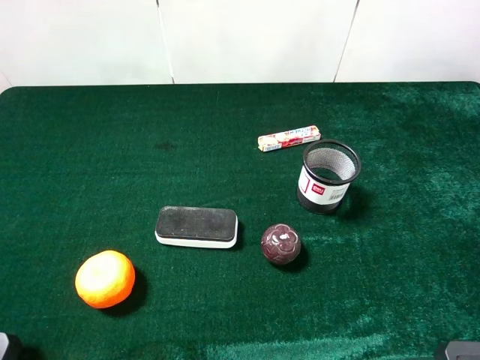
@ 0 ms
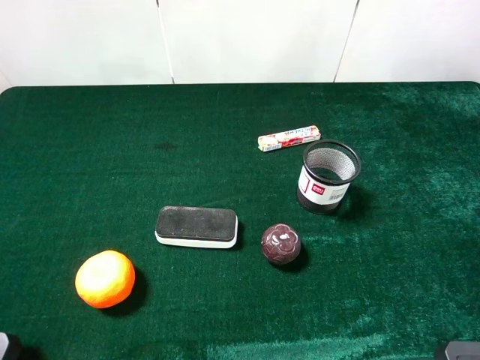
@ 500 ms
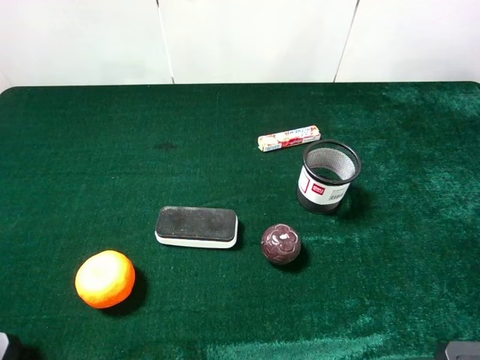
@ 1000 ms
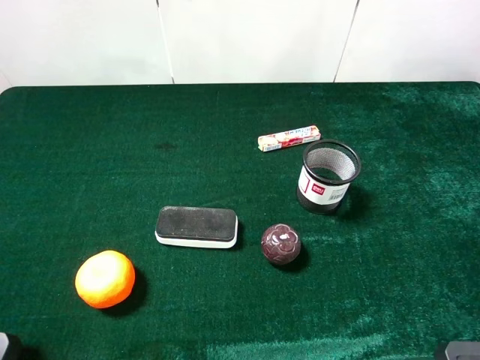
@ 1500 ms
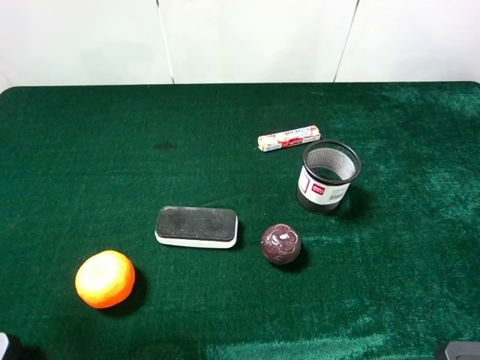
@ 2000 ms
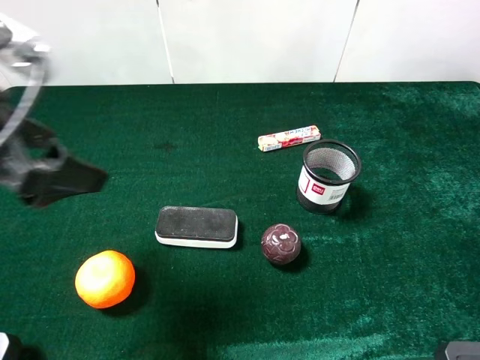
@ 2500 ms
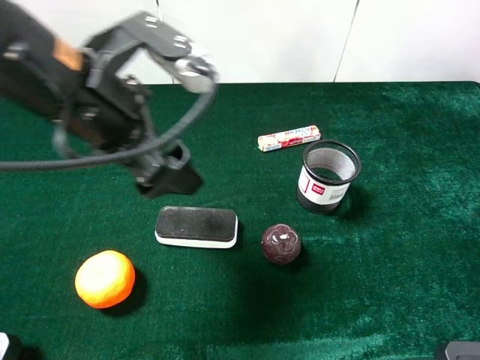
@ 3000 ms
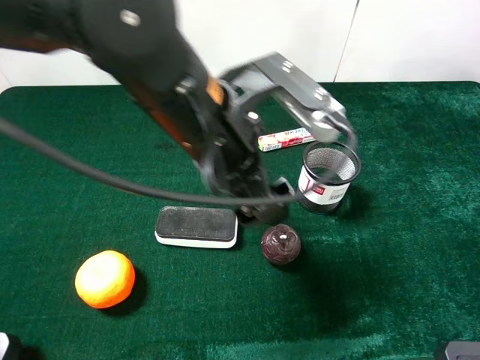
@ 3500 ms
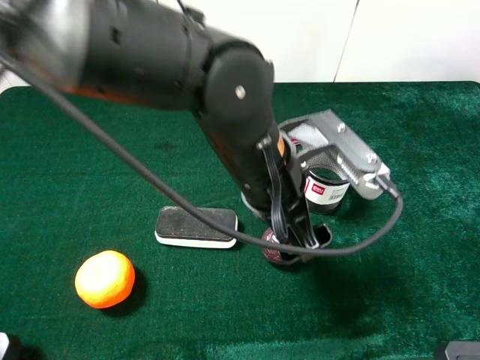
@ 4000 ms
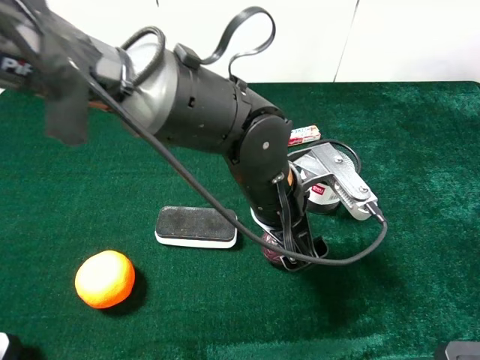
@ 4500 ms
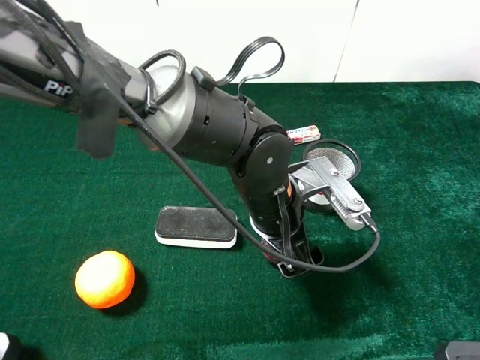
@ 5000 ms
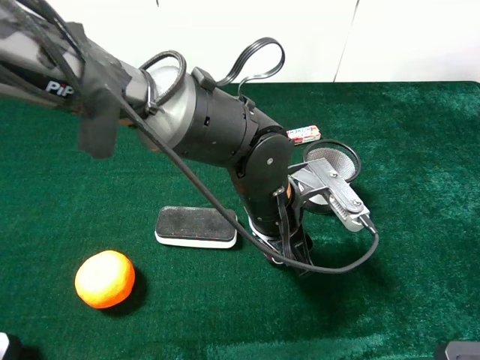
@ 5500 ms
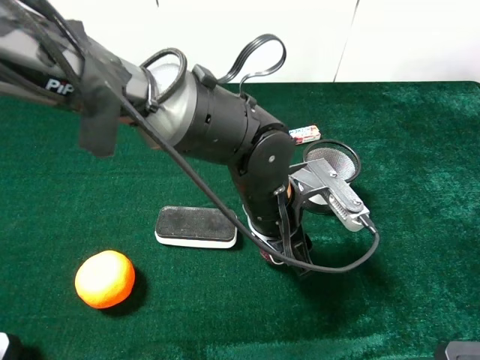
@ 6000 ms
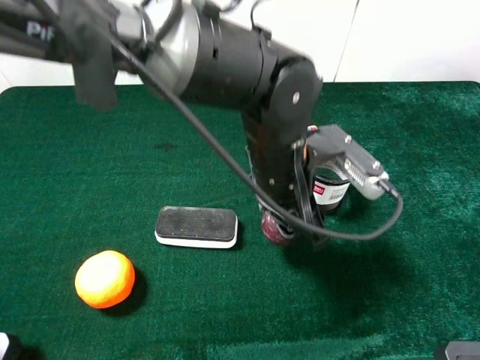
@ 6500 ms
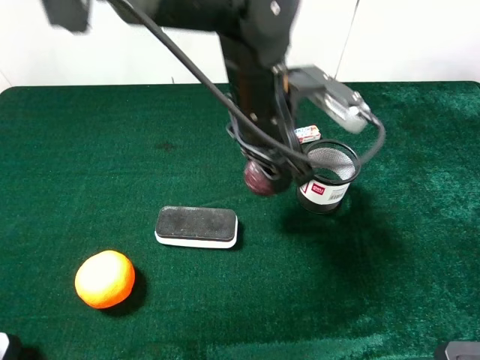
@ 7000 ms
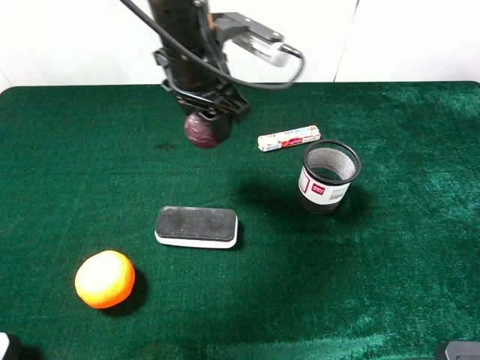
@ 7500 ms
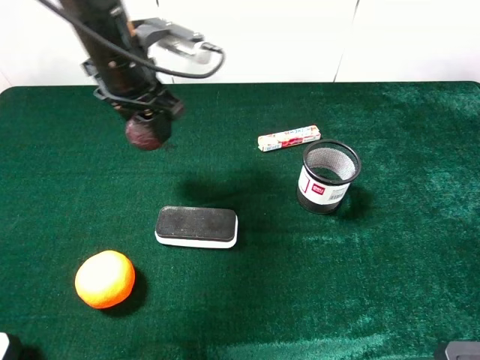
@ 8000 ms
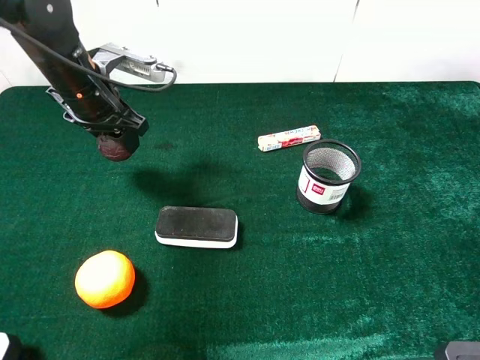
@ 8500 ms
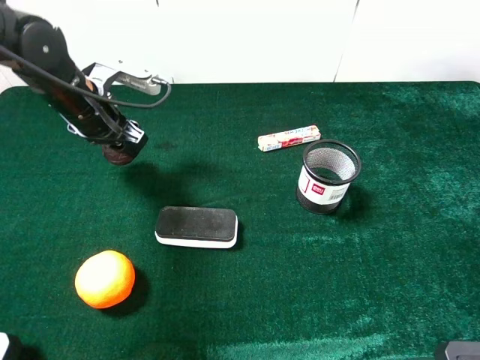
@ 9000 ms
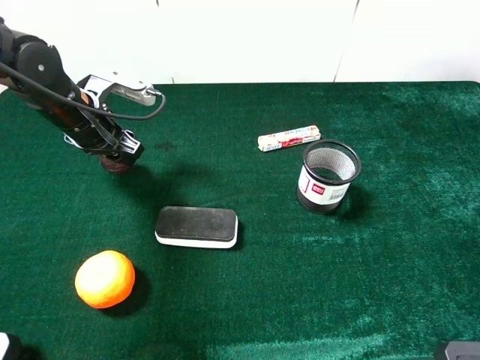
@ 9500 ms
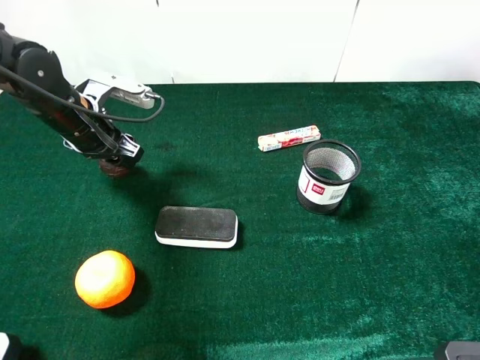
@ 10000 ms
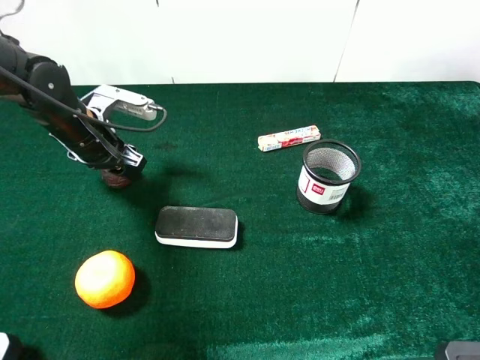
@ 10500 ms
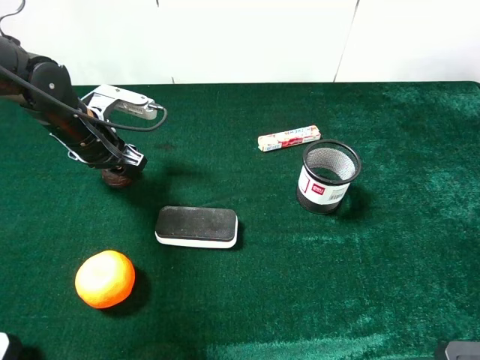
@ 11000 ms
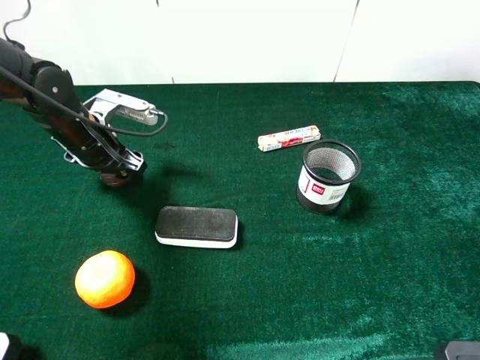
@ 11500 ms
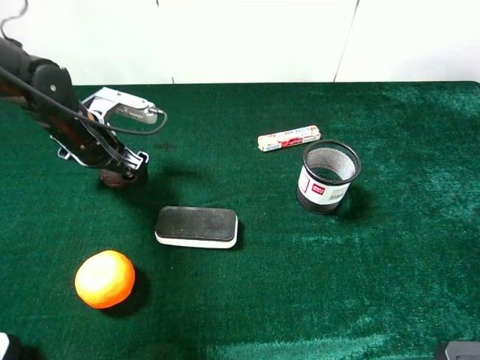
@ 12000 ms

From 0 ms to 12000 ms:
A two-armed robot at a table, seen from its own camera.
Task of the whole recording: the gripper move the object.
Step, from 0 ms to 5000 ms: Grasp the mangosteen with the left gripper.
Step, from 5500 ms to 11500 ms: Place the mangosteen on the table with the left gripper.
From 2000 ms to 4000 ms: The left gripper is displaced to the right by about 30 cm.
From 4000 ms to 6000 ms: The left gripper goes approximately 10 cm downward, and closes up.
From 6000 ms to 8000 ms: The left gripper heads to the left, forward and upward, covering about 25 cm.
From 8000 ms to 10000 ms: The left gripper goes about 15 cm to the left and downward.
From 10000 ms to 12000 ms: The left gripper opens.

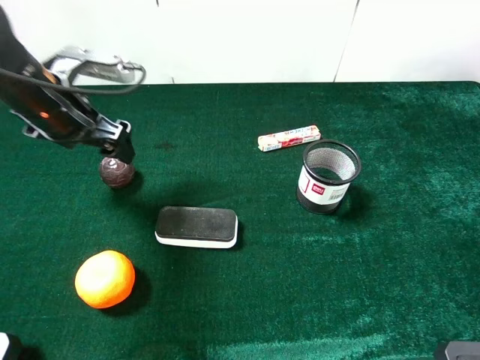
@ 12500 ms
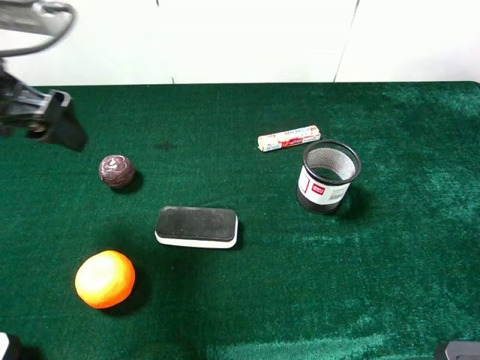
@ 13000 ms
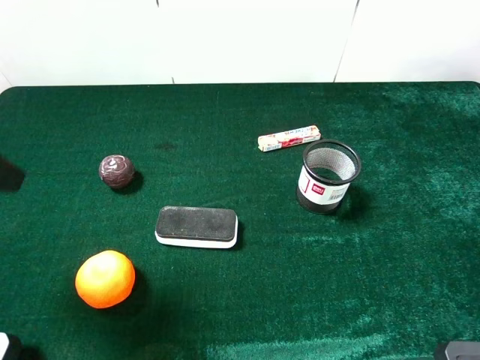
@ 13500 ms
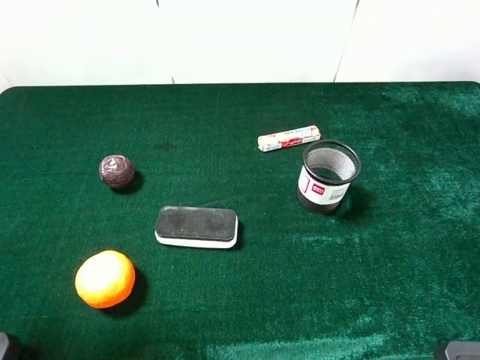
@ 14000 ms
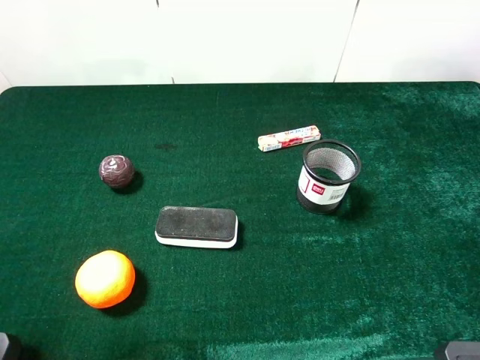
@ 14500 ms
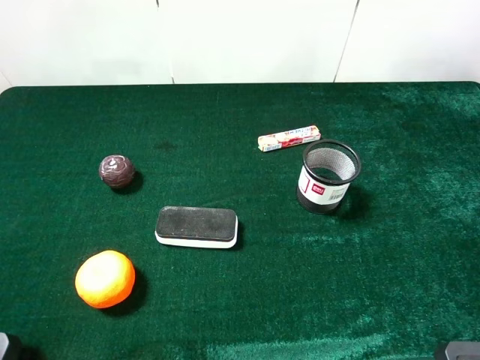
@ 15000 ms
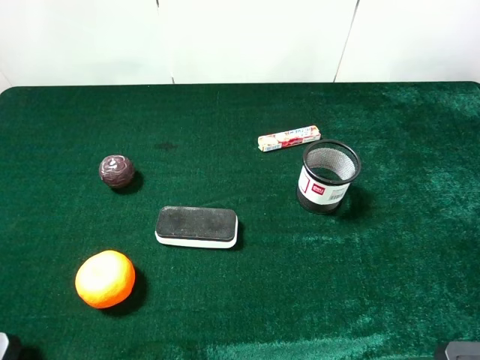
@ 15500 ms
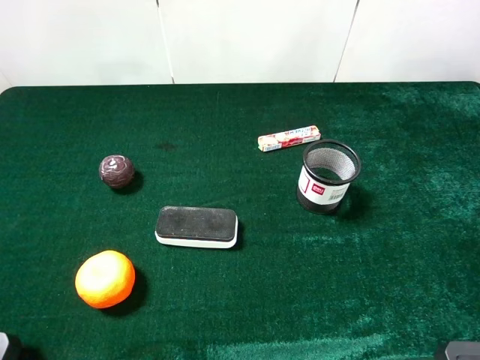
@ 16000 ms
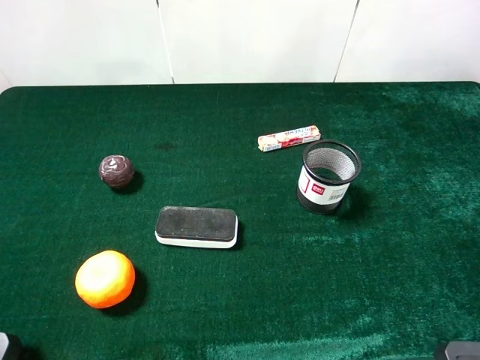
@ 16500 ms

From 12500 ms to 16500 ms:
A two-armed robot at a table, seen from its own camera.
Task of the whole recording: the gripper move the object.
From 12500 ms to 14500 ms: The left gripper goes about 25 cm backward and upward.

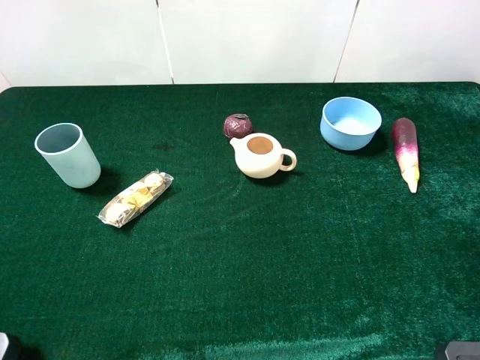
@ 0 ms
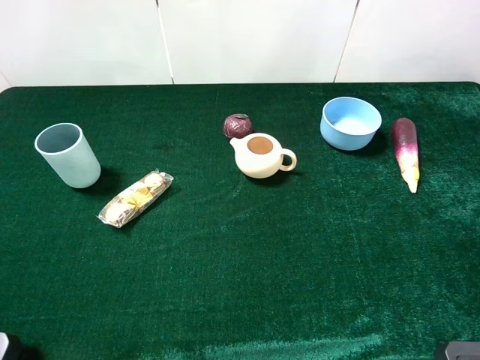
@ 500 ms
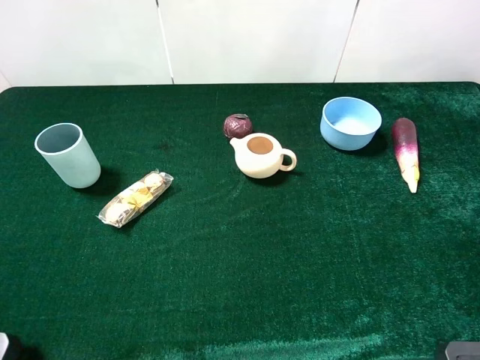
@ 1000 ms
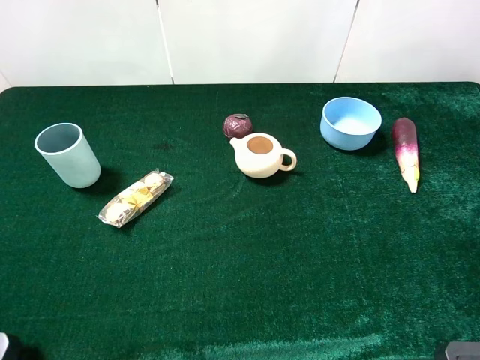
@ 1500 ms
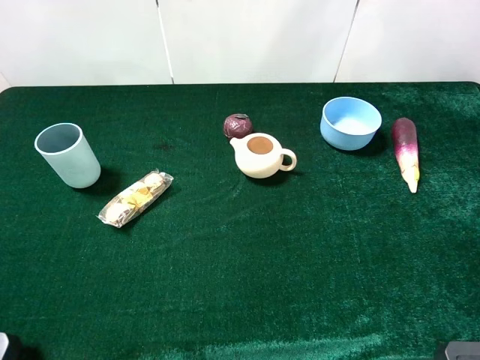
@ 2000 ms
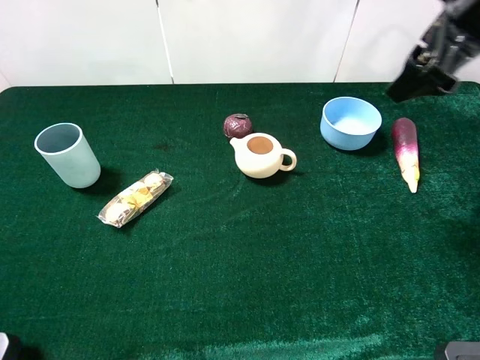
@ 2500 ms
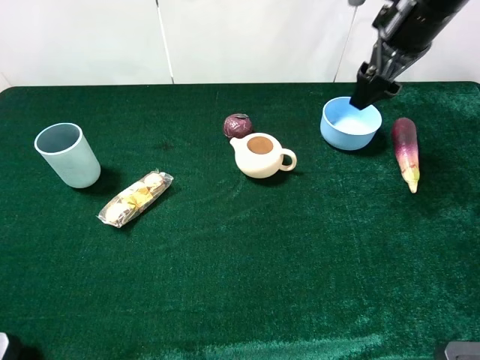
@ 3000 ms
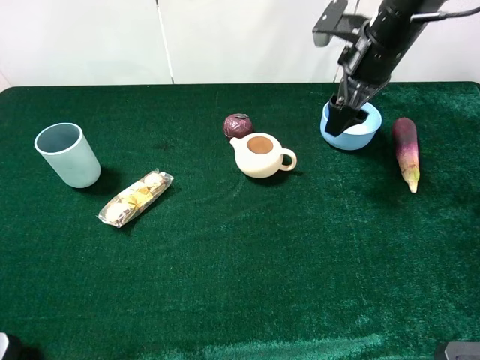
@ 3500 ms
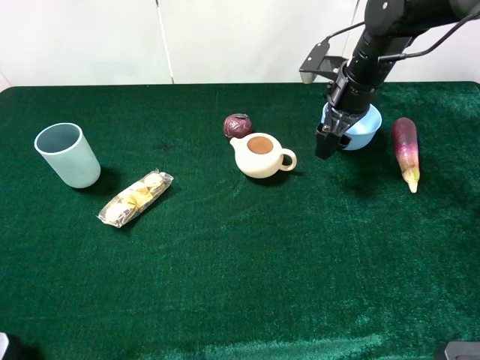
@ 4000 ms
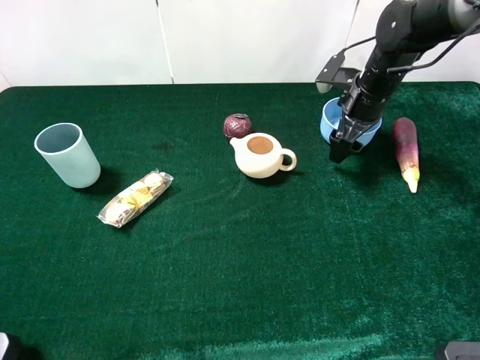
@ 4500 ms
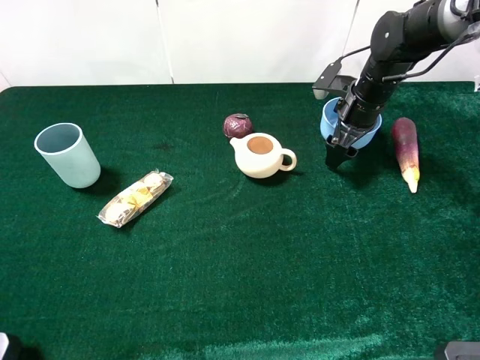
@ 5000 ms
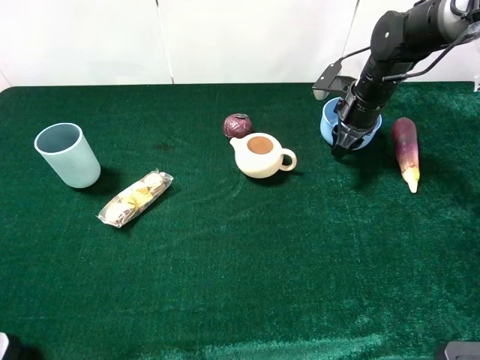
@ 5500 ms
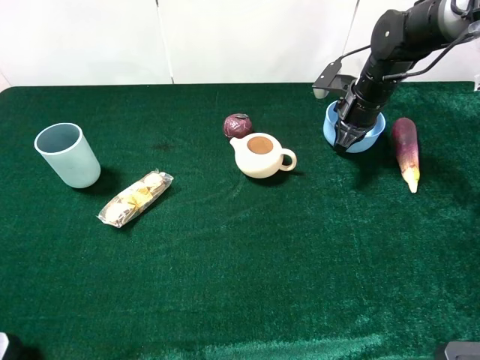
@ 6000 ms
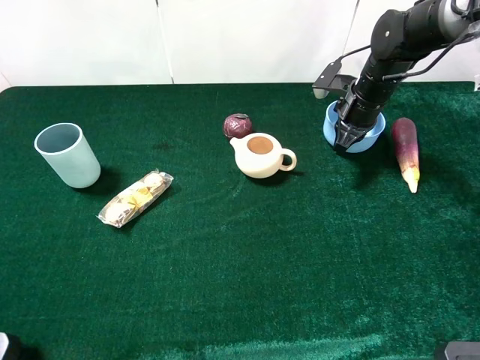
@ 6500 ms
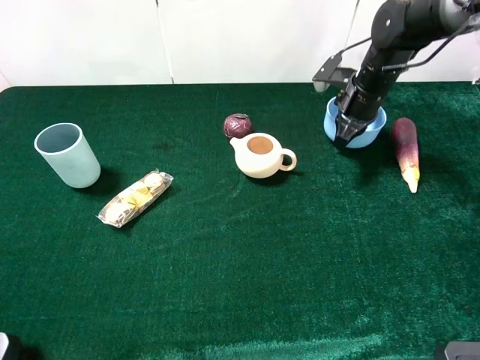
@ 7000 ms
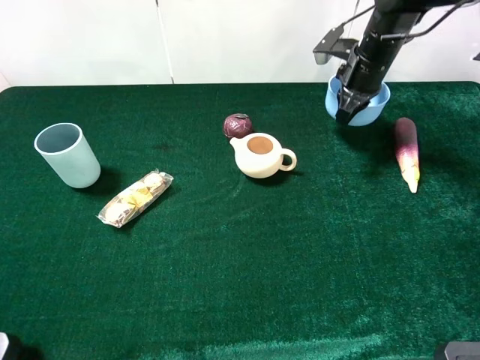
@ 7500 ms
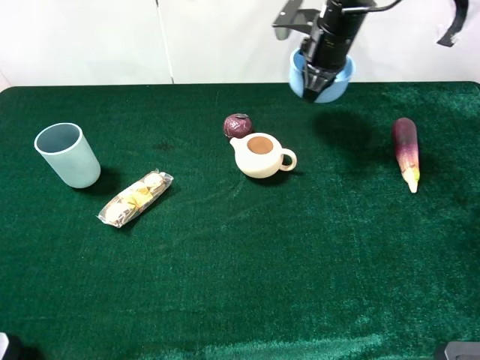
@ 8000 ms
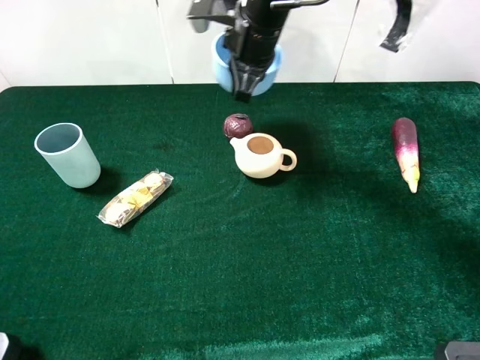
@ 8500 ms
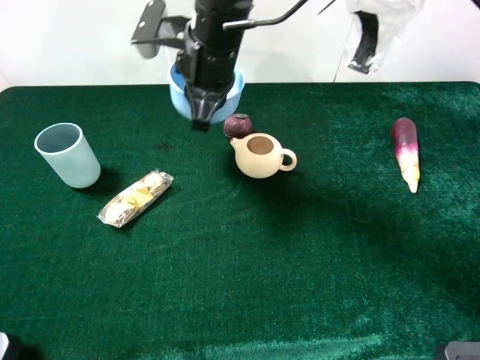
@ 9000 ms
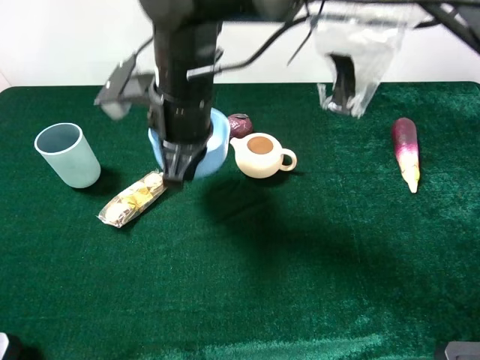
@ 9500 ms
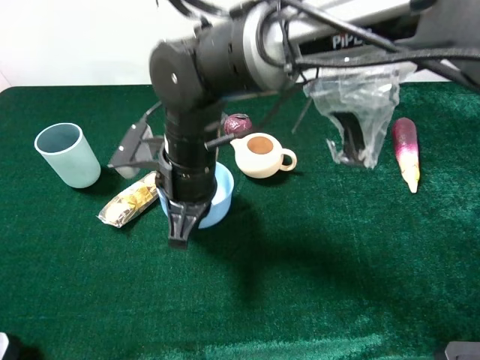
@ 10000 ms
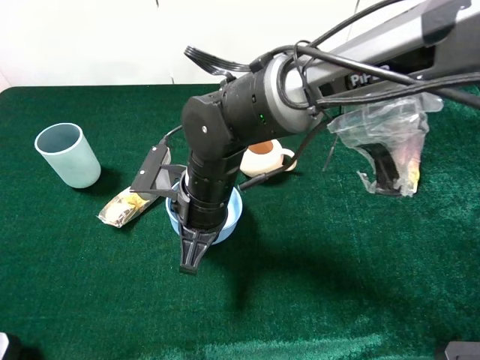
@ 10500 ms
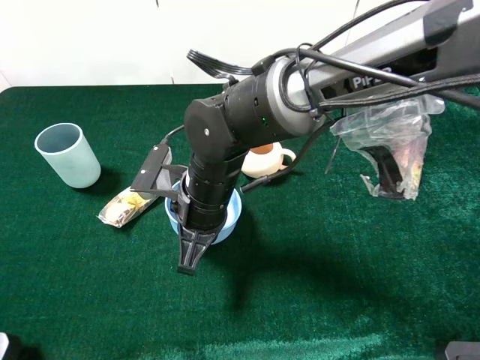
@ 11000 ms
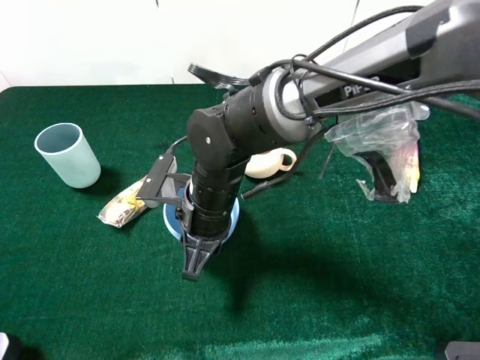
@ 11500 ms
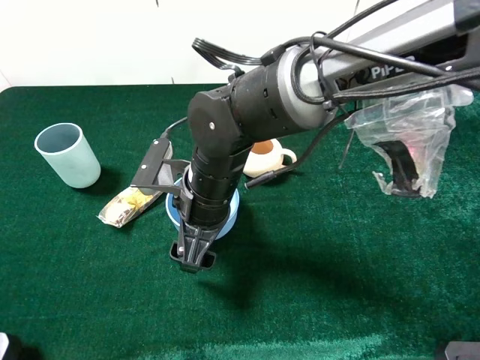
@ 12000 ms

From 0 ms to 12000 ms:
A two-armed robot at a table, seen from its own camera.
Task of the whole recording: the gripper move the object.
Step, from 0 ms to 6500 ms: Grasp the blue bowl with the right gripper.
From 2000 ms to 4000 ms: The right gripper goes approximately 30 cm forward, downward and to the left.
From 4000 ms to 6000 ms: The right gripper ends up roughly 5 cm from where it was, and closes its fingers.
From 6000 ms to 8000 ms: The right gripper is displaced upward and to the left by roughly 10 cm.
From 8000 ms to 10000 ms: The right gripper moves backward and to the left, some 25 cm.
From 10000 ms to 12000 ms: The right gripper opens.
